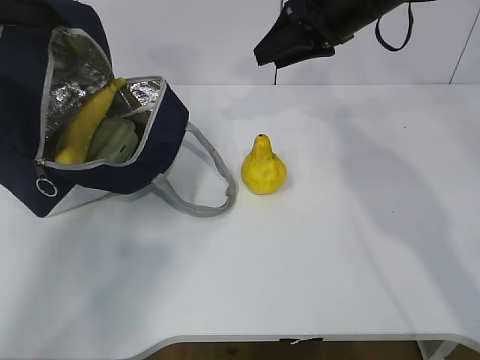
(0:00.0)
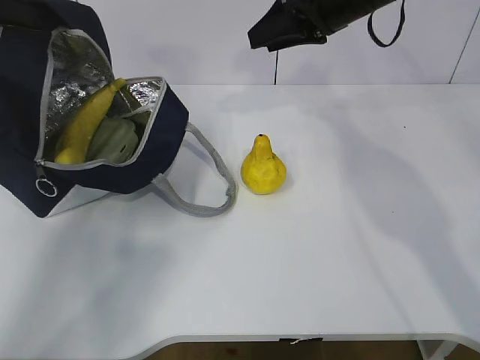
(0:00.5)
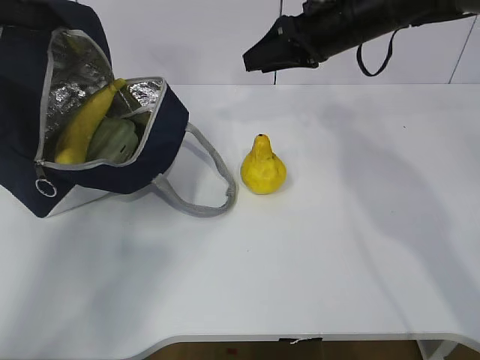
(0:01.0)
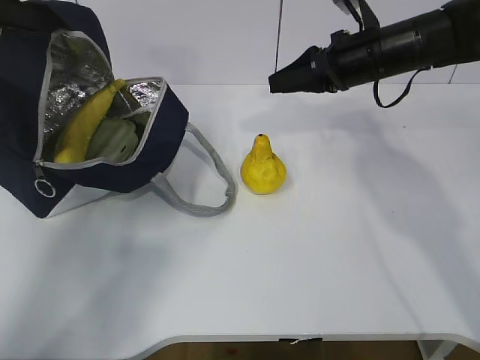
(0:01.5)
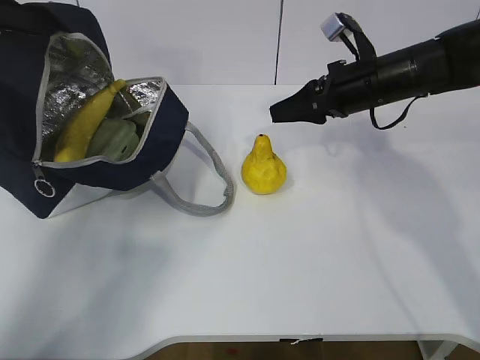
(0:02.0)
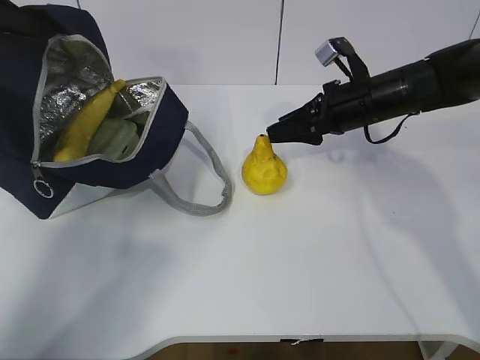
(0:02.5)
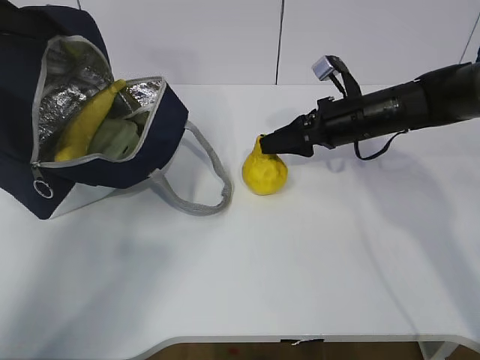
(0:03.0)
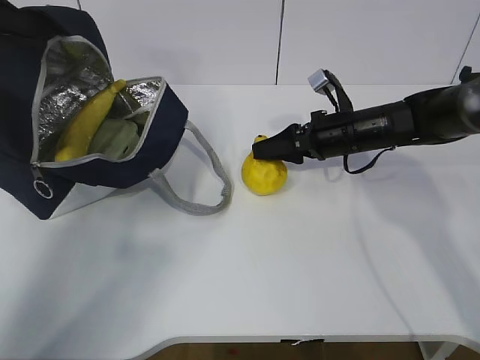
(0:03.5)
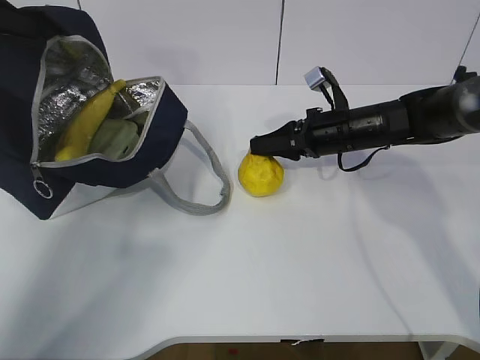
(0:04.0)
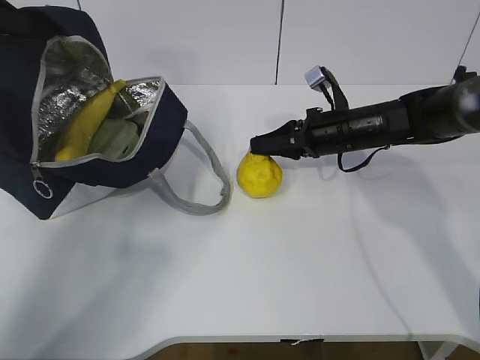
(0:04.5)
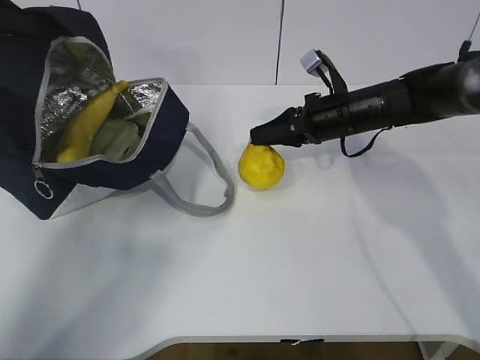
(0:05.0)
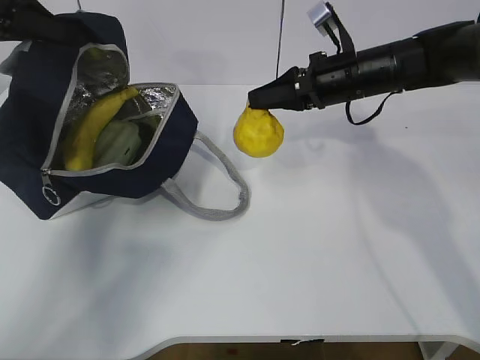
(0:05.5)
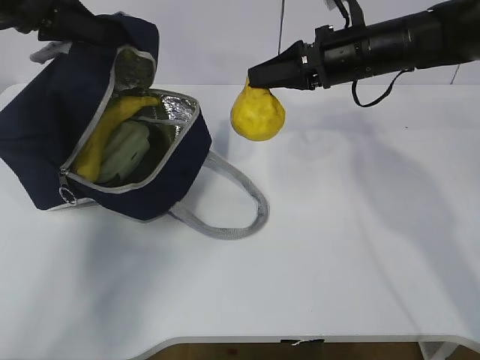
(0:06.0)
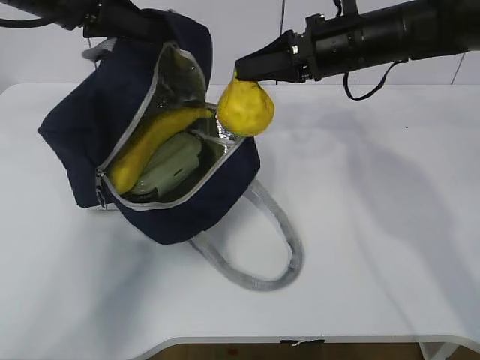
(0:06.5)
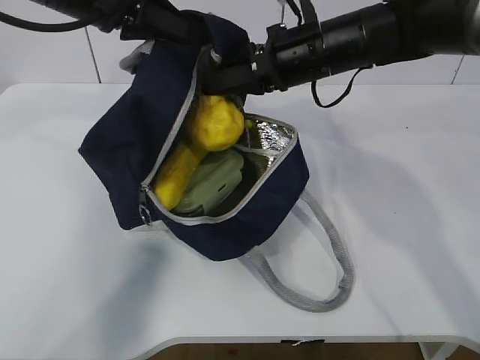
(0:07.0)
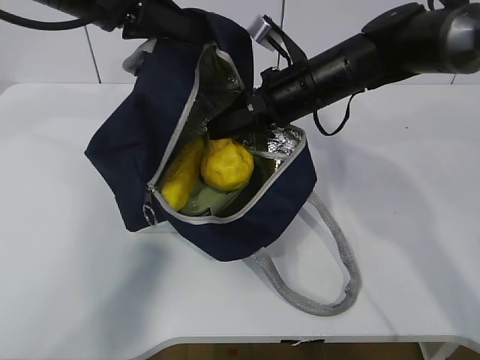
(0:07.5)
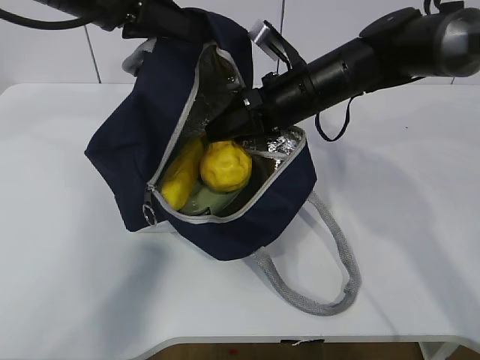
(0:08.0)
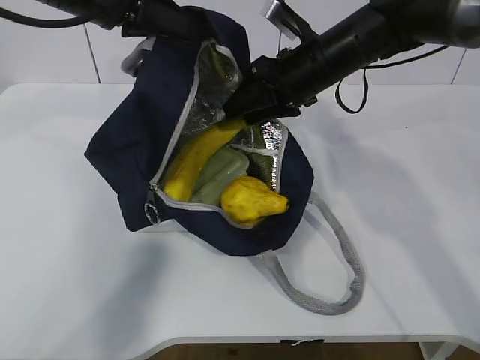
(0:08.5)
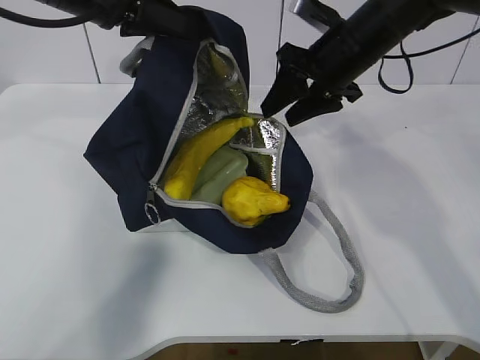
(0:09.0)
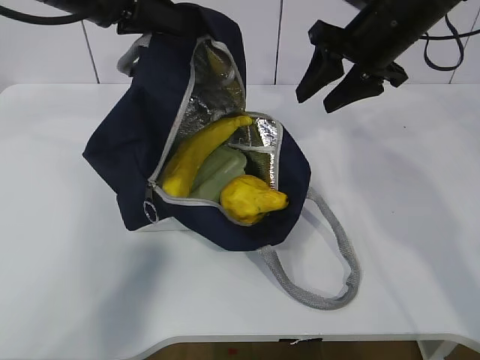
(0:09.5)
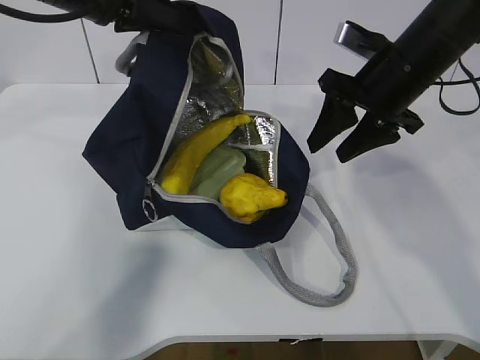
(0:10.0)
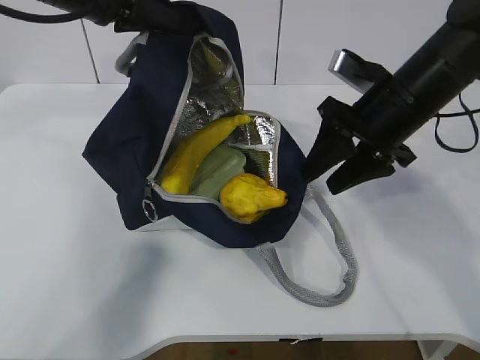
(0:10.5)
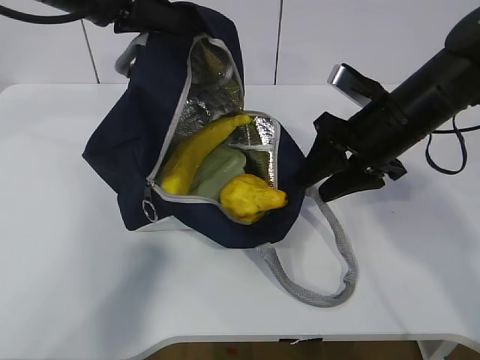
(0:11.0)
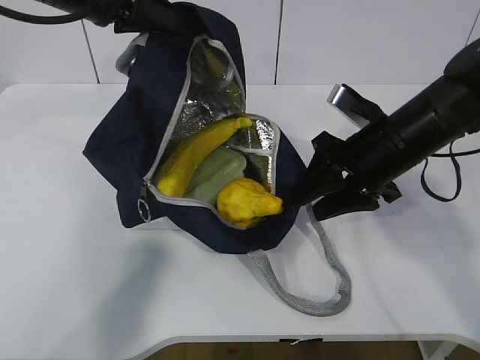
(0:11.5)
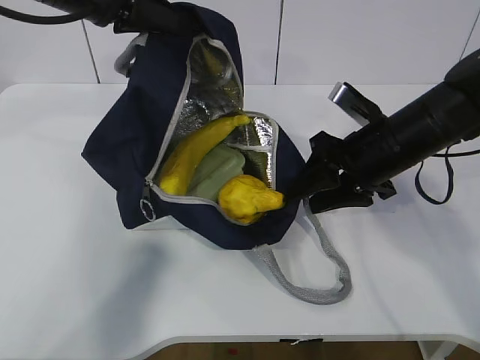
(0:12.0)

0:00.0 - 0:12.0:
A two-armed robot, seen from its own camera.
Step, 0:00.5 - 0:04.0: Grab the lunch bag with your right hand.
Step, 0:04.5 - 0:08.5: Move the lunch bag to the right.
0:00.0 - 0:02.0: The right gripper shifts approximately 10 cm downward.
0:02.0 - 0:04.0: The right gripper heads downward, covering approximately 10 cm, and opens and closes again.
0:04.0 - 0:06.0: The right gripper is displaced upward by approximately 10 cm. Meanwhile the left gripper goes roughly 10 cm to the right.
0:06.0 - 0:08.0: The left gripper moves to the right, about 10 cm. The right gripper shifts some 5 cm to the left.
0:08.0 - 0:10.0: The right gripper is displaced to the right by approximately 10 cm.
0:10.0 - 0:12.0: The right gripper heads downward, covering approximately 5 cm.

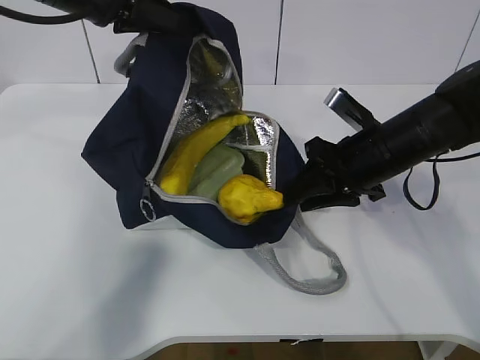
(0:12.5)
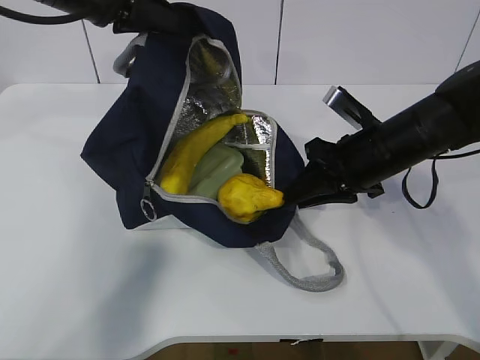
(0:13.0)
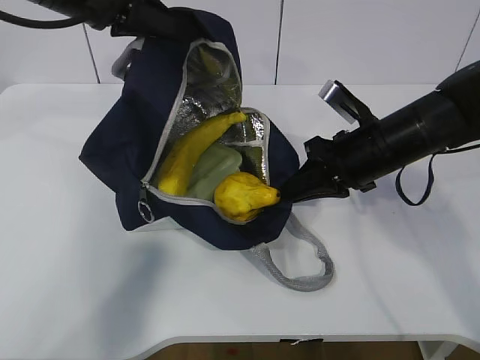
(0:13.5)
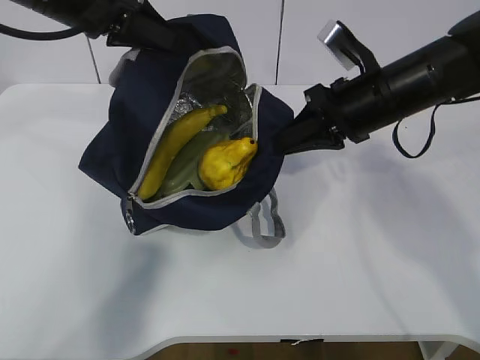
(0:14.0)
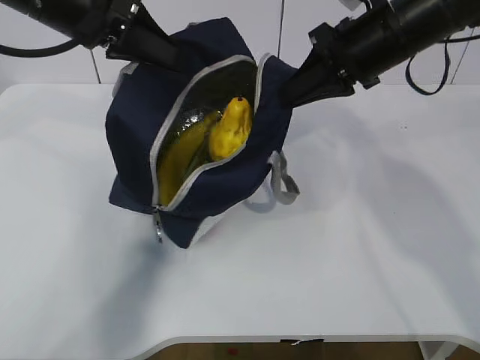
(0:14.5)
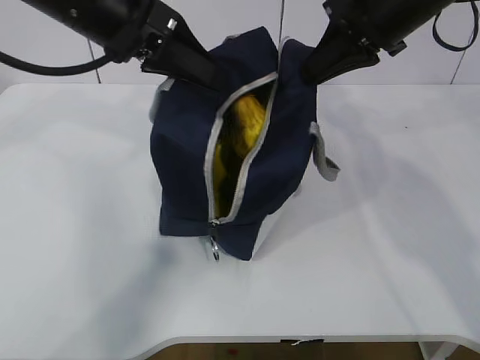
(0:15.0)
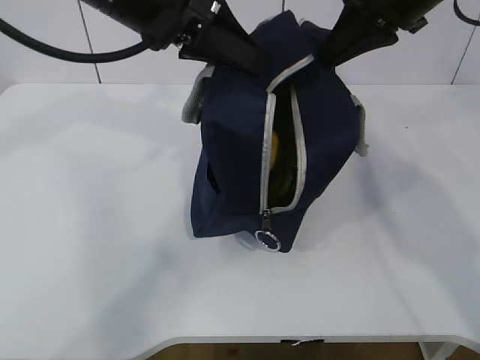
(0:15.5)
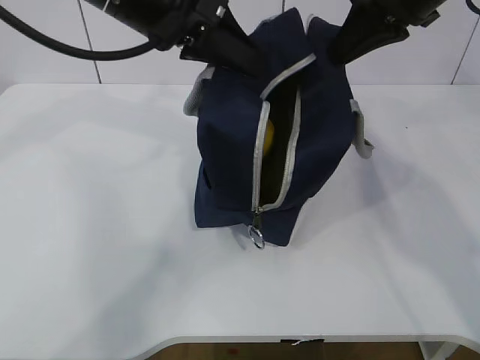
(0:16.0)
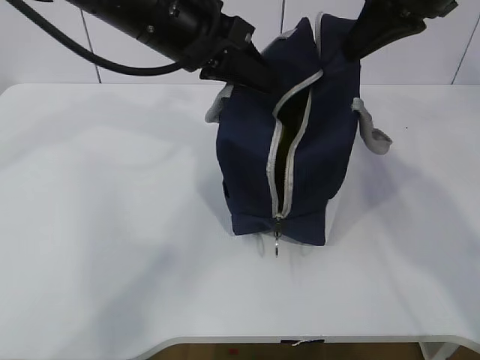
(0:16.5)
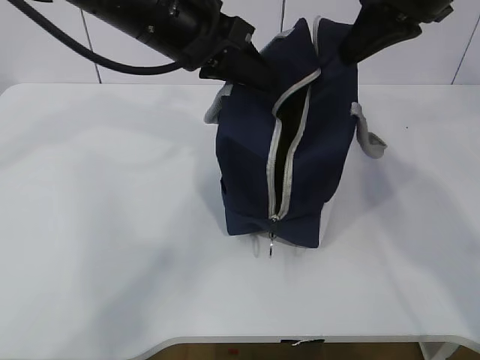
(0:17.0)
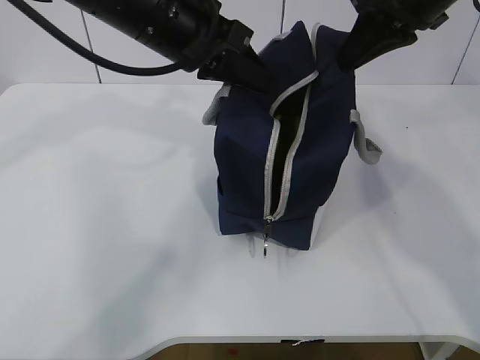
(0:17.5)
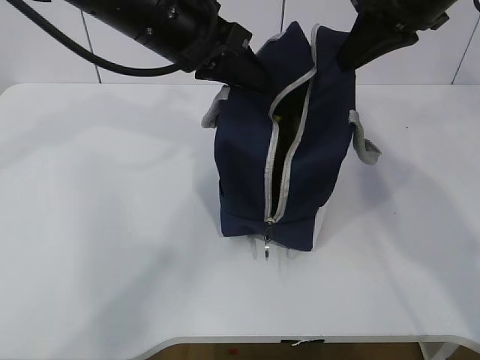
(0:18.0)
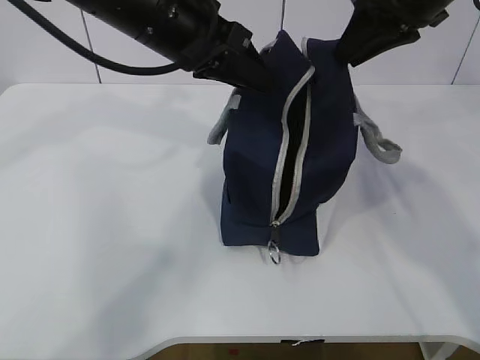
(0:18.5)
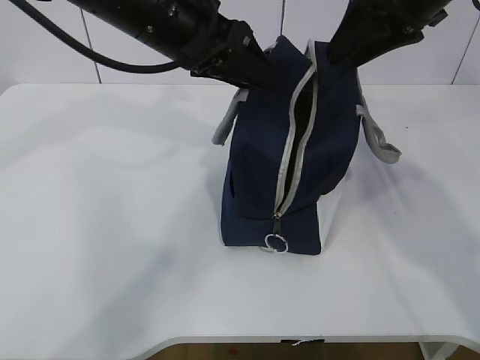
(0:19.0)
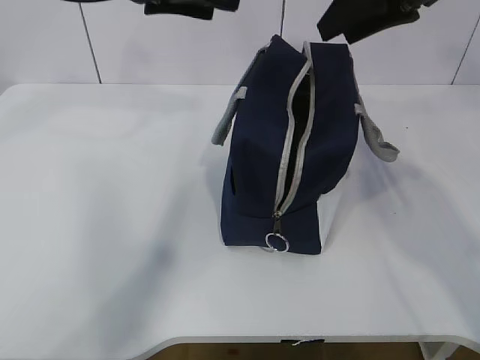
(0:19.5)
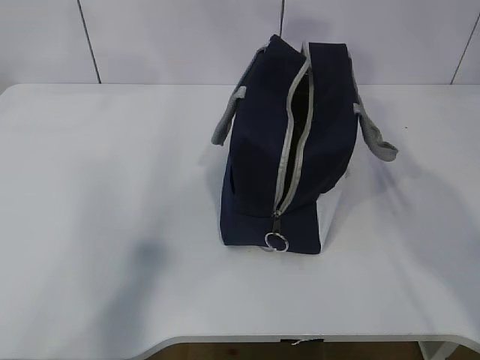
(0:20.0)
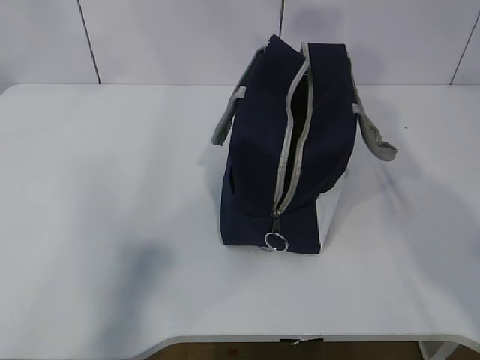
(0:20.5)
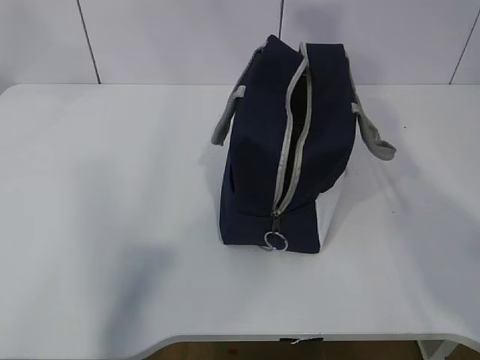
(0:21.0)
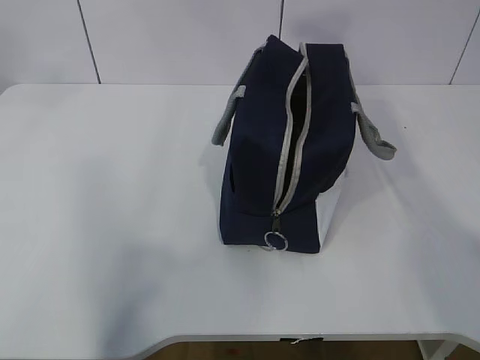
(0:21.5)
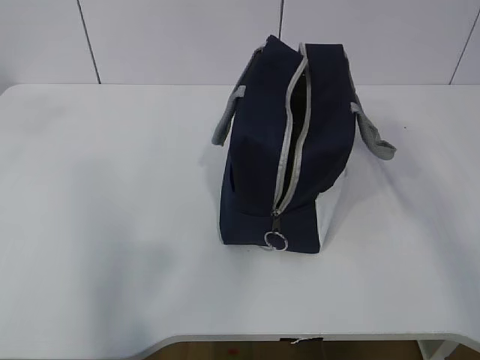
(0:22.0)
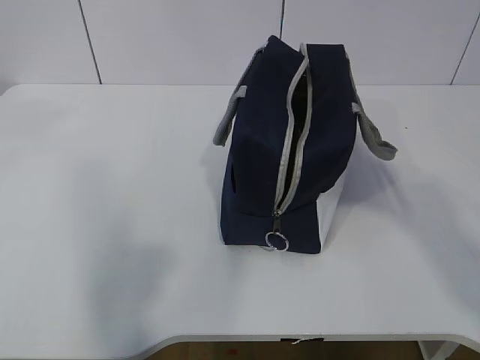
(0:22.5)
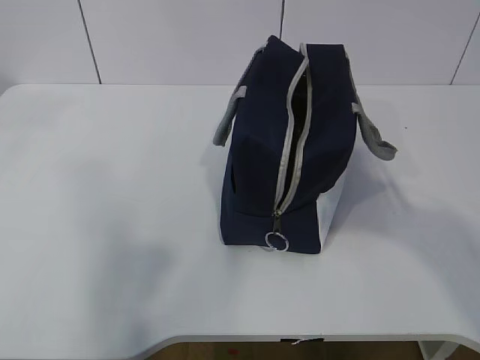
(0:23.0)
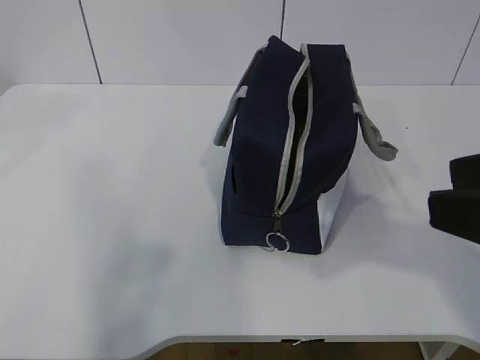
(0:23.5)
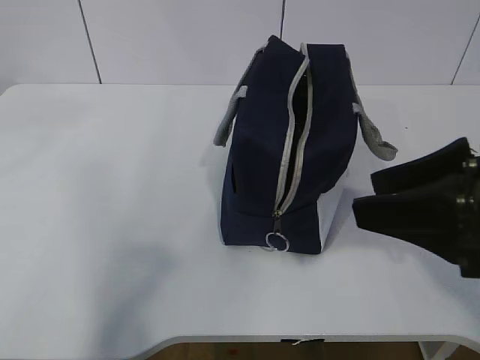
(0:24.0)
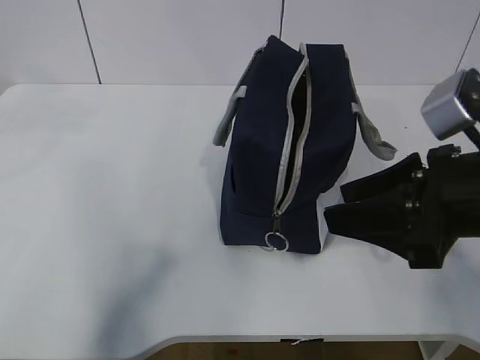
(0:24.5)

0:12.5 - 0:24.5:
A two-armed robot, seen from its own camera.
0:12.5 - 0:14.5: The right gripper heads upward, covering some 10 cm, and closes up.
0:14.5 - 0:16.5: The right gripper shifts about 5 cm upward. Meanwhile the left gripper moves to the right, about 10 cm.
0:16.5 - 0:18.5: The left gripper opens up.
0:18.5 - 0:20.5: The left gripper shifts roughly 20 cm upward and to the left, and opens. The right gripper is displaced upward by about 10 cm, and opens.
0:20.5 - 0:22.5: The right gripper is displaced backward by about 25 cm; the left gripper travels backward by about 15 cm.
0:22.5 - 0:24.5: The right gripper shifts roughly 20 cm downward and forward; the left gripper shifts approximately 10 cm forward and downward.

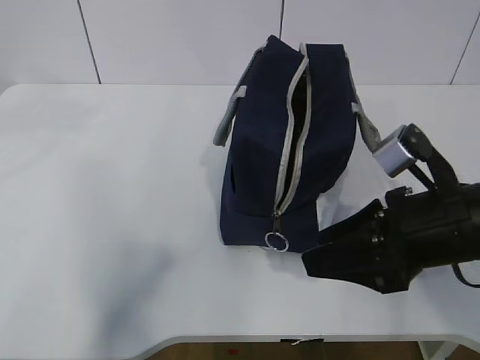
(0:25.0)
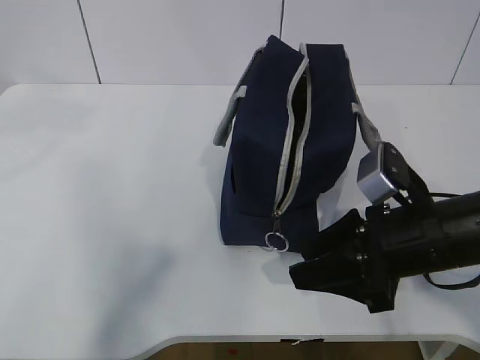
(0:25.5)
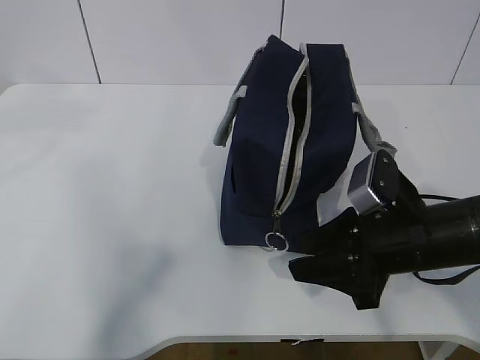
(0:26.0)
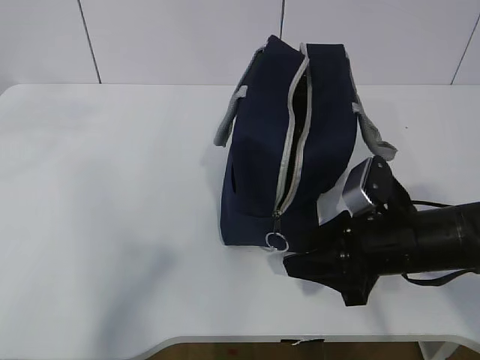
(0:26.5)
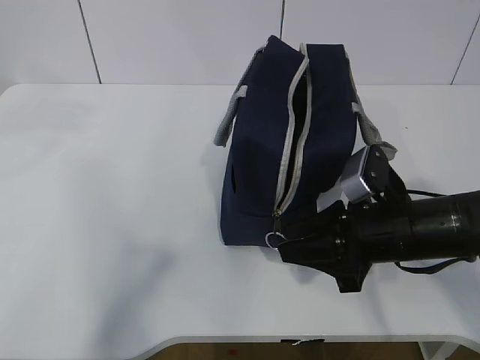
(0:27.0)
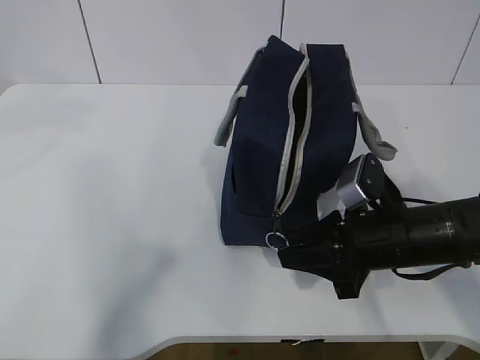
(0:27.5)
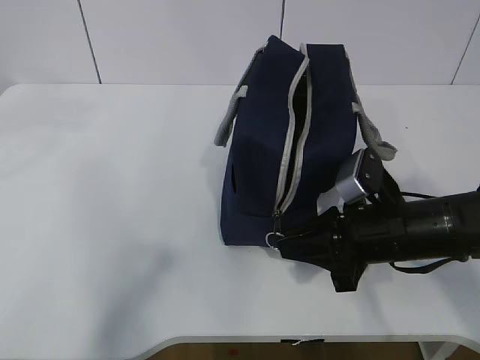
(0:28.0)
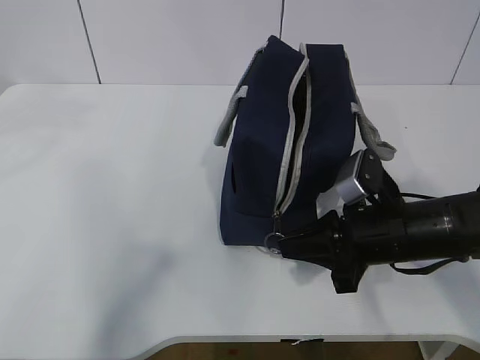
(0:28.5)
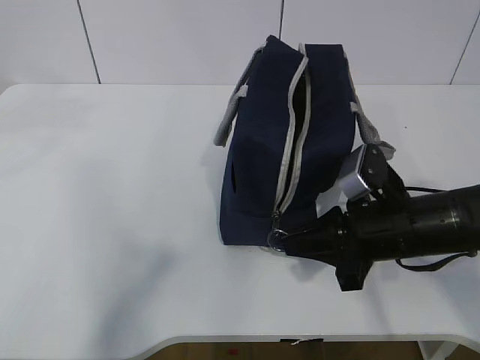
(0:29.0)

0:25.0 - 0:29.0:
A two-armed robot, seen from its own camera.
0:25.0 - 0:27.0: The right gripper moves downward, approximately 5 cm.
0:27.0 - 0:29.0: The right gripper closes up.
